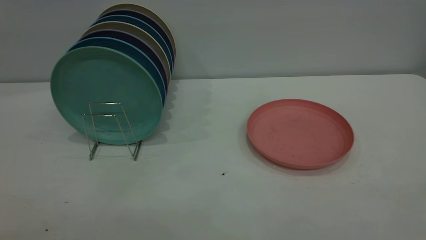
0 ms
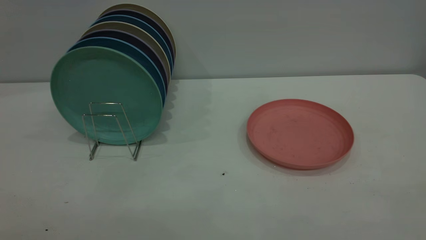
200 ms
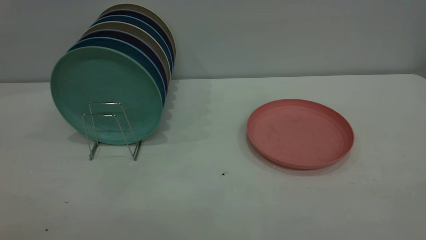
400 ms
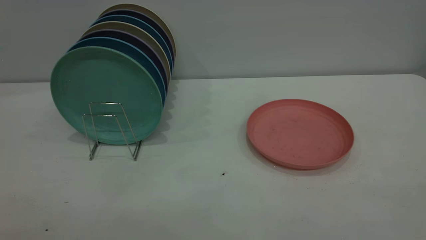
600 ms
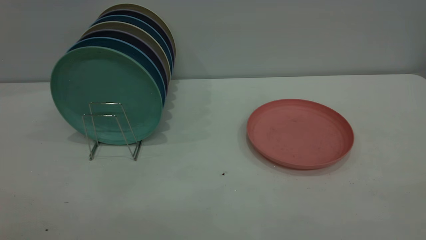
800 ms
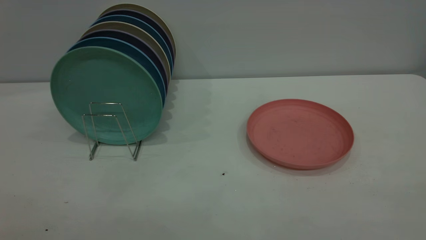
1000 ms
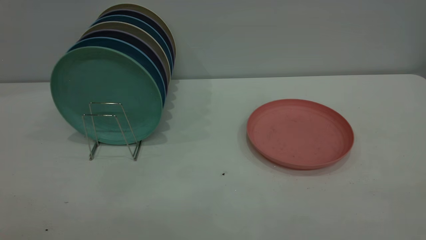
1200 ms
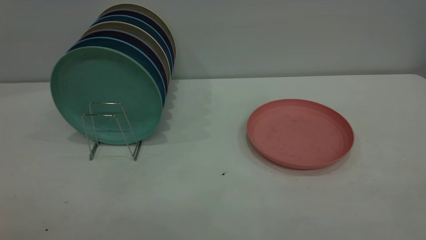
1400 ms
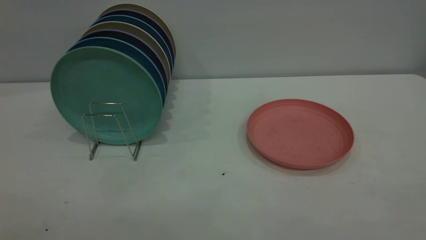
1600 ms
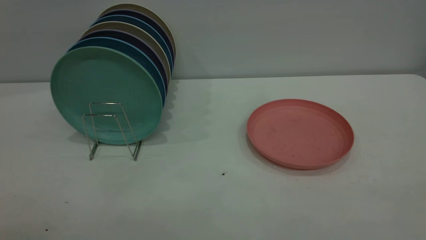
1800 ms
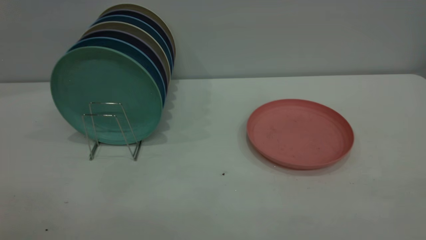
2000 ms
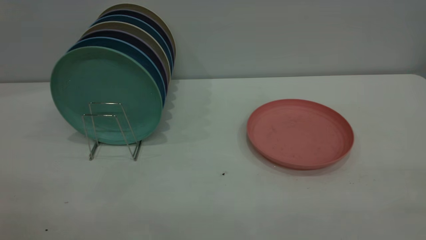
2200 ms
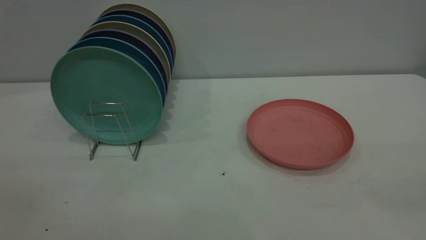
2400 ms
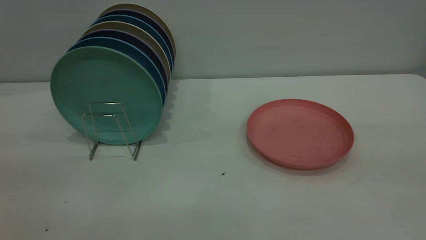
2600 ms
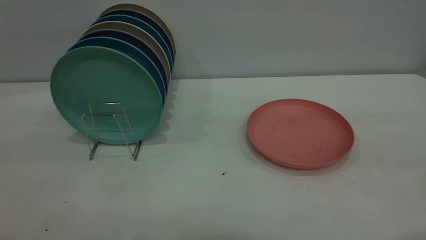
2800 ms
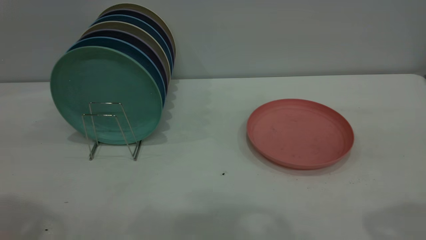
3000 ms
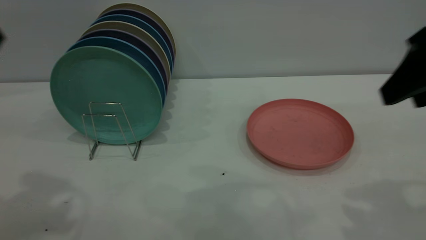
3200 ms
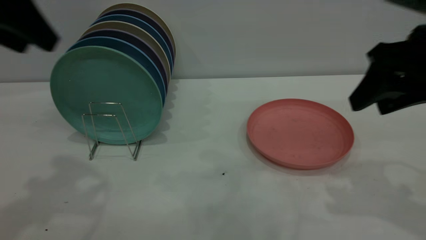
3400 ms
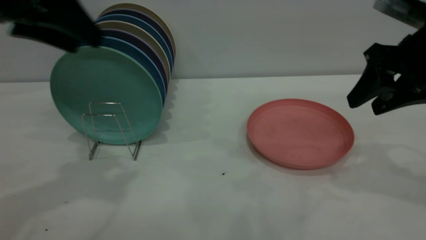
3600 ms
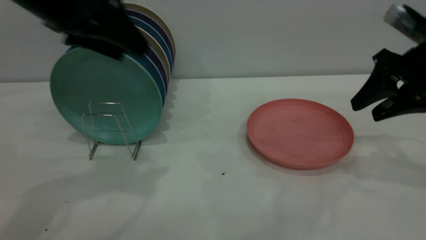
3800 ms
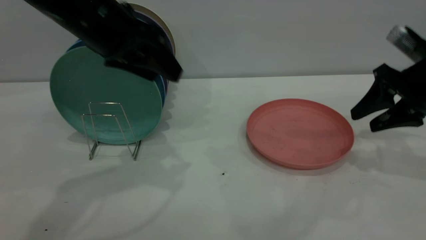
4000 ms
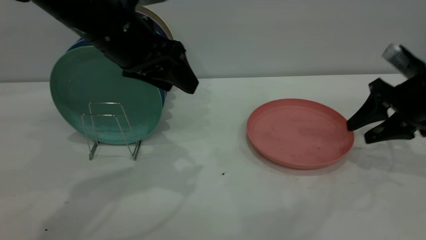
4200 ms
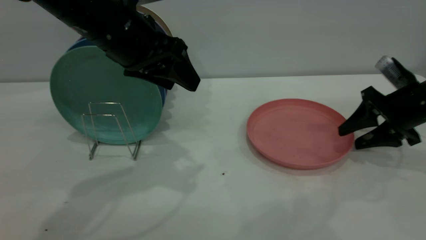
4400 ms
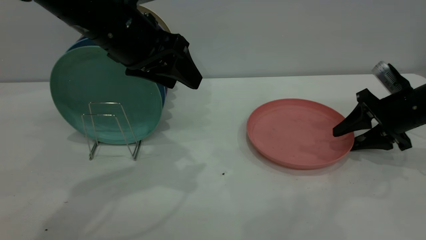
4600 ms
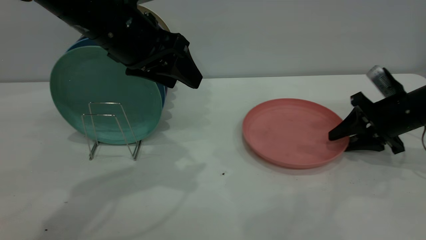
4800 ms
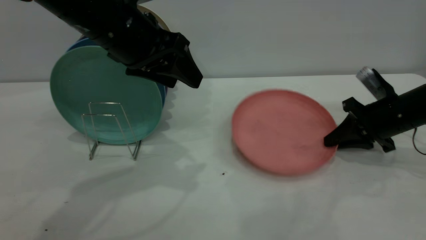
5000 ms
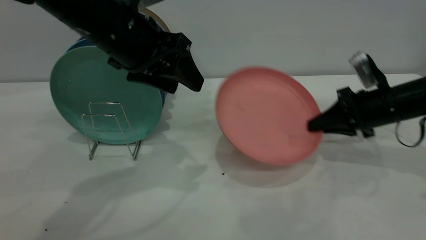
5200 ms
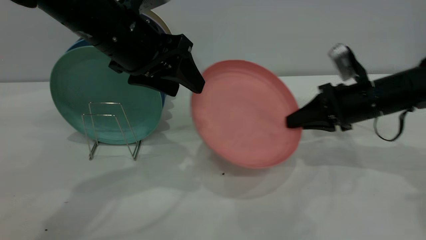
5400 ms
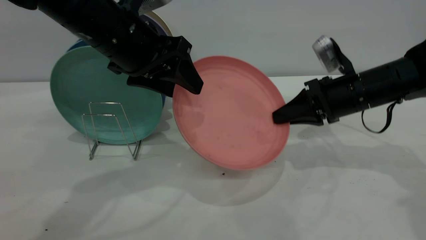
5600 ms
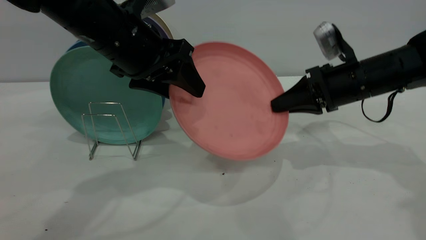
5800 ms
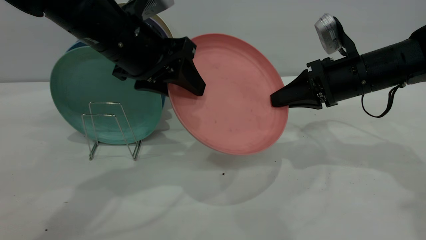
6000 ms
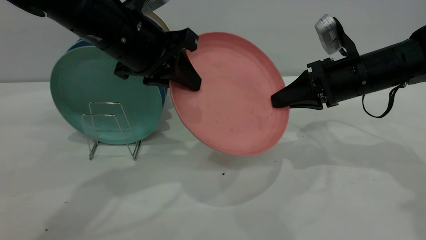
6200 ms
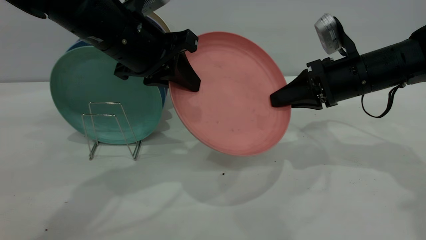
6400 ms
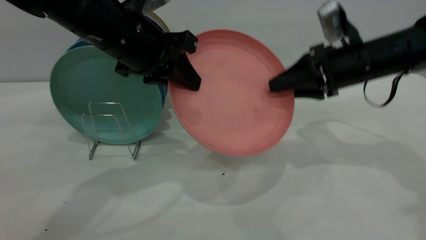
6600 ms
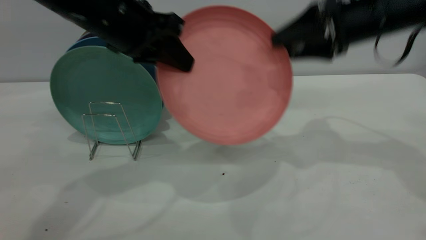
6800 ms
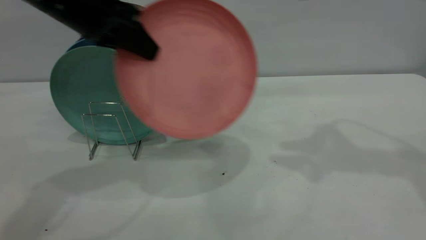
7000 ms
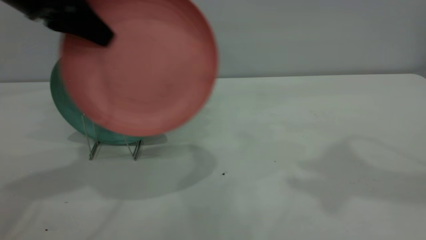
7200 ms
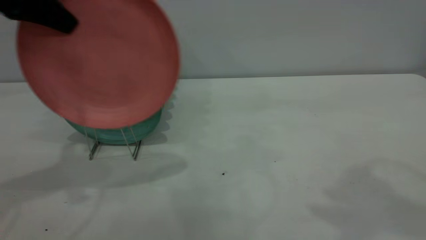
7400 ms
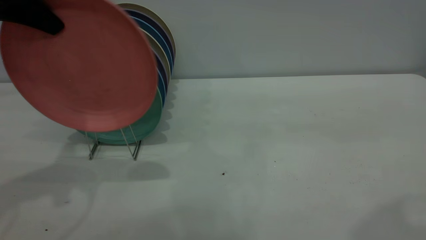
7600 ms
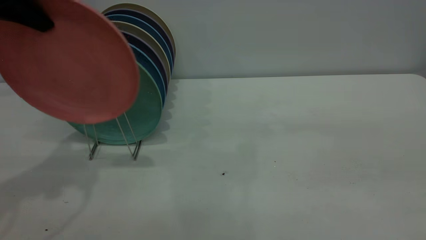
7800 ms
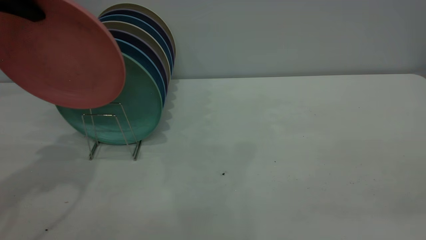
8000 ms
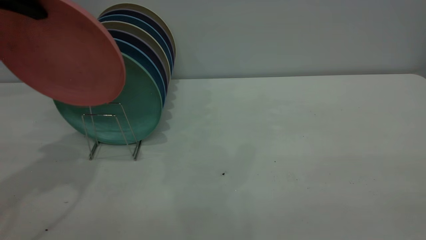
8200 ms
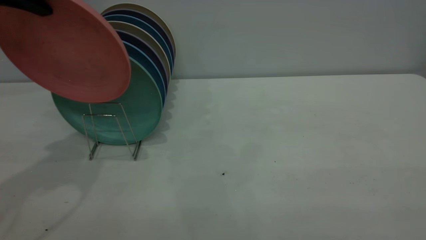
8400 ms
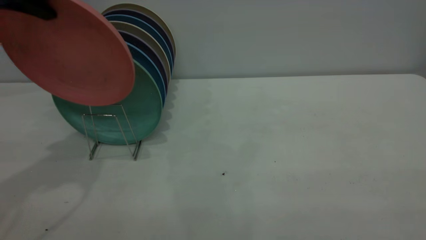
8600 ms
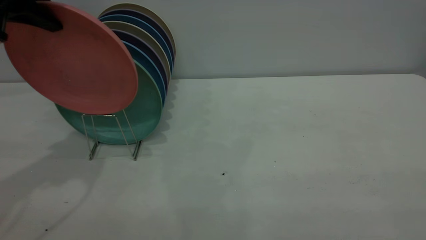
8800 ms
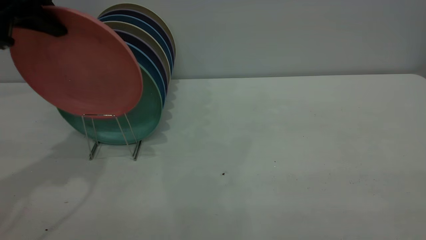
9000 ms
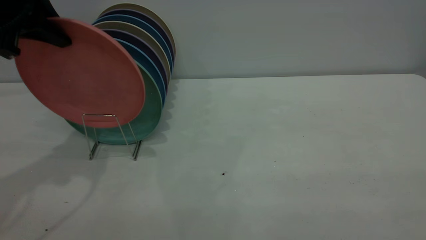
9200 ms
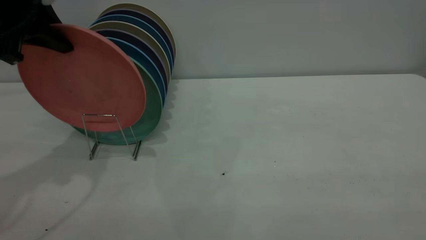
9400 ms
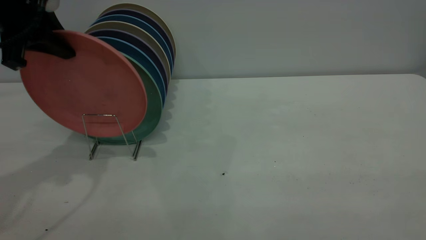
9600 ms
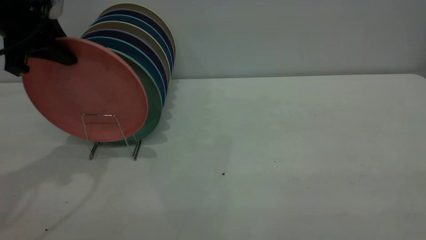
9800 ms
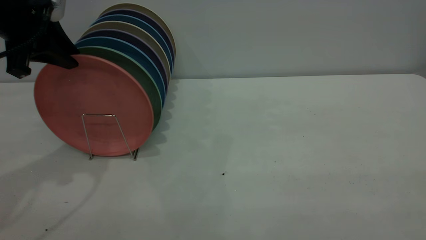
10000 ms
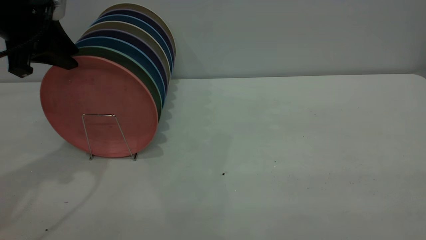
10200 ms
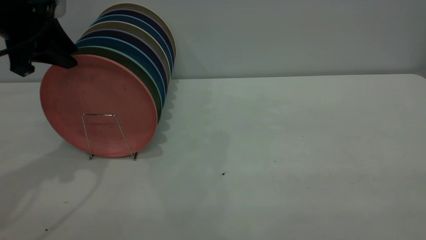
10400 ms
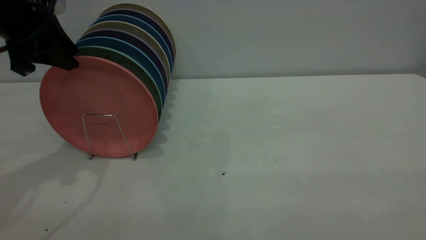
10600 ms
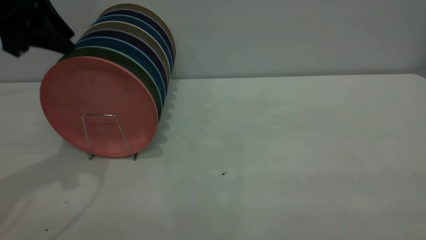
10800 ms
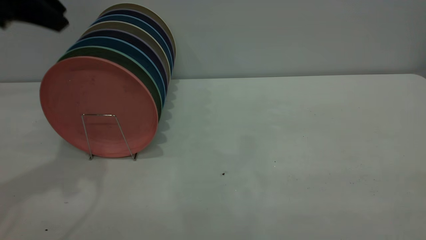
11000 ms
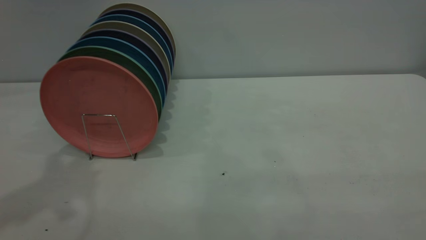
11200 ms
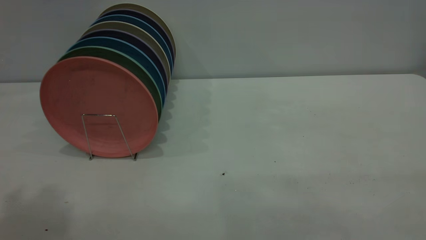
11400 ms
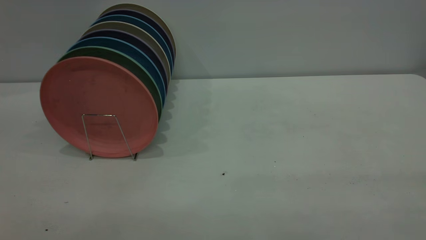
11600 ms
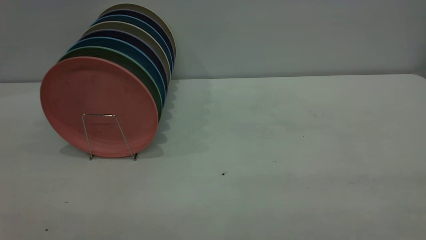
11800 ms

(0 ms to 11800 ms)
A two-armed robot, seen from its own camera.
Task of the whole recording: the right gripper grasp the pink plate, the right gripper pass the pink plate to the left gripper, and the left gripper place the pink plate on the plate rack.
Step, 0 ms - 5000 ms: Pick up the plate with the right gripper.
Step, 5400 ms - 6800 ms: Pass the plate from the right gripper to the left gripper.
Step, 7000 ms - 10800 ms: Place the plate on the shelf.
0 ms - 1400 ms: Both grippers stay put.
3000 ms - 4400 ms: The right gripper shifts roughly 30 cm downward and forward; the left gripper shifts roughly 25 cm to the right, forward and downward.
4400 ms - 6000 ms: The right gripper is displaced to the left by about 10 cm, and closes, while the left gripper closes.
6000 ms - 7400 ms: The right gripper is displaced upward and backward by some 35 cm, and opens. The left gripper goes approximately 20 cm to the left and upward, and closes its fingers.
7400 ms - 8800 ms: The right gripper goes roughly 25 cm backward.
8800 ms - 10400 ms: The left gripper moves downward, roughly 5 cm, and opens up.
10400 ms - 11800 ms: The left gripper travels backward and upward by some 40 cm.

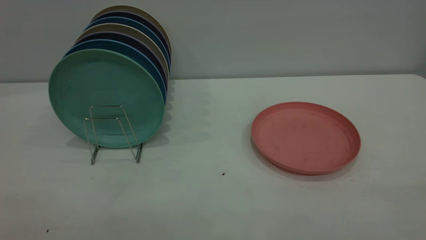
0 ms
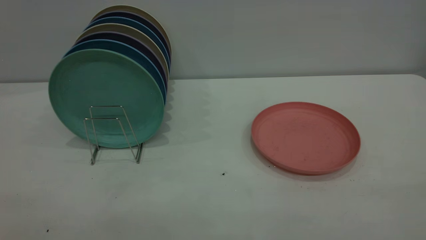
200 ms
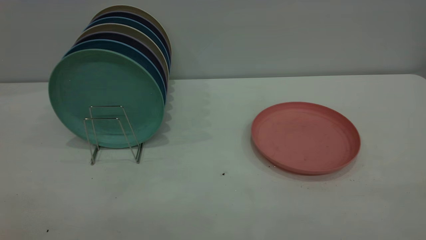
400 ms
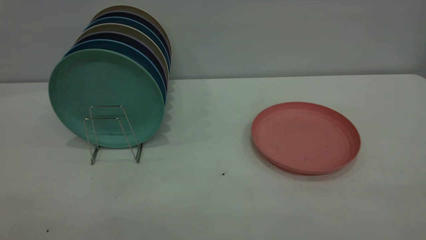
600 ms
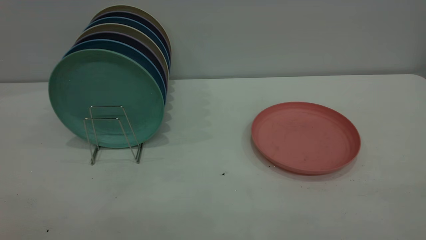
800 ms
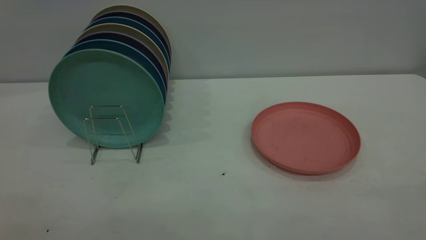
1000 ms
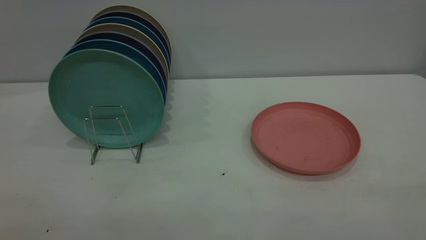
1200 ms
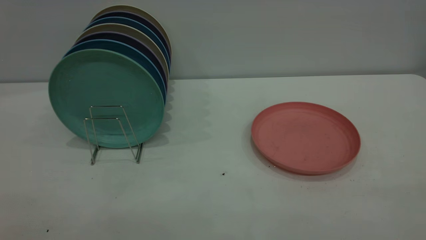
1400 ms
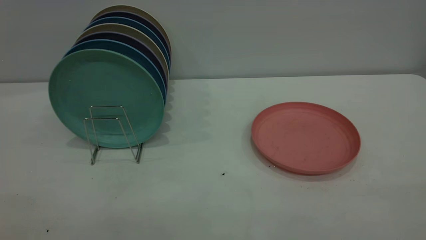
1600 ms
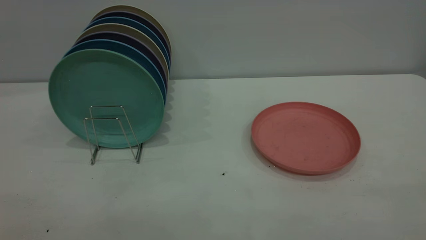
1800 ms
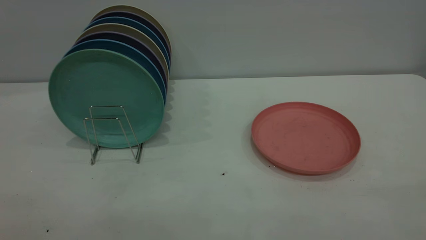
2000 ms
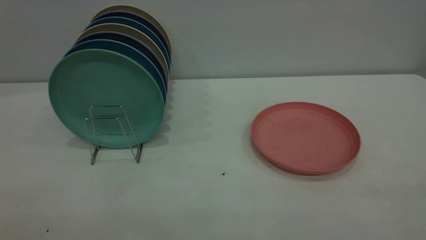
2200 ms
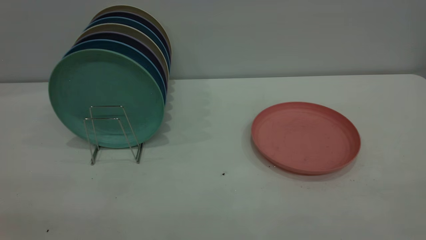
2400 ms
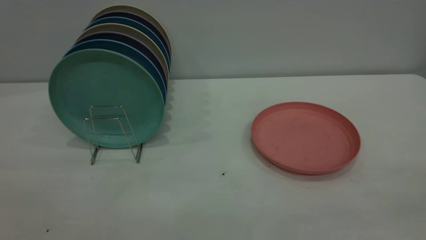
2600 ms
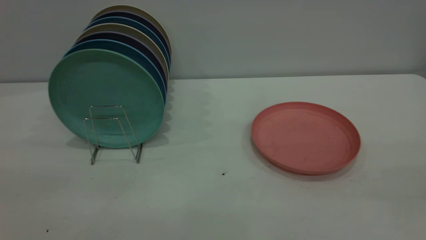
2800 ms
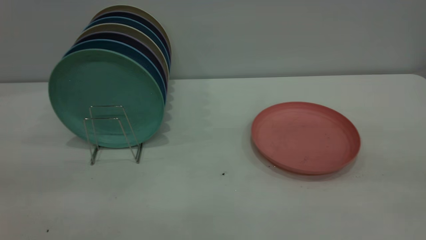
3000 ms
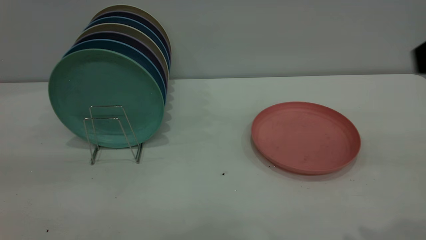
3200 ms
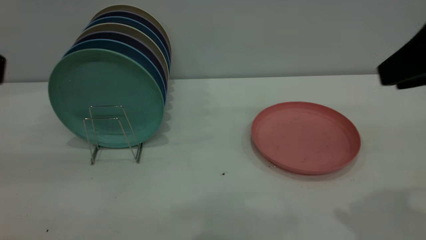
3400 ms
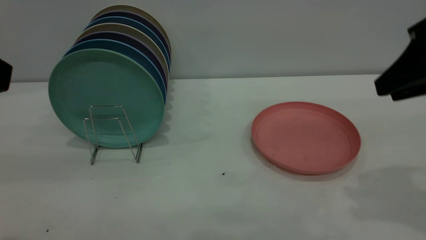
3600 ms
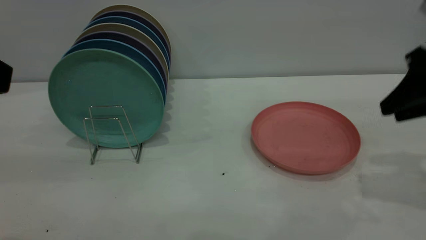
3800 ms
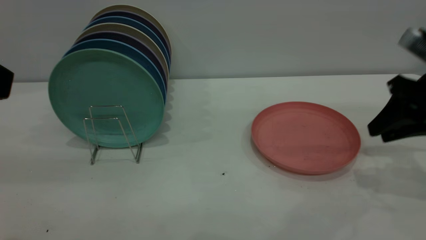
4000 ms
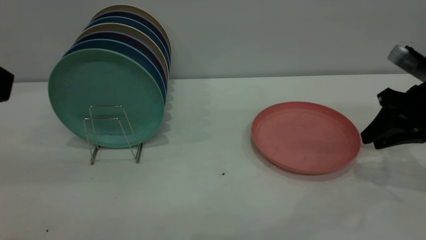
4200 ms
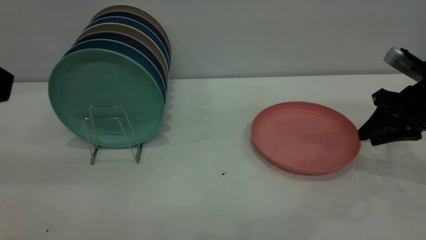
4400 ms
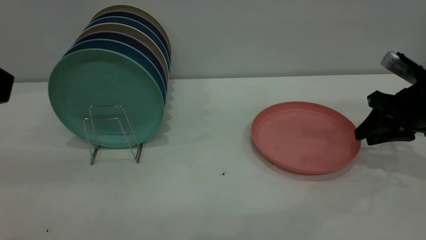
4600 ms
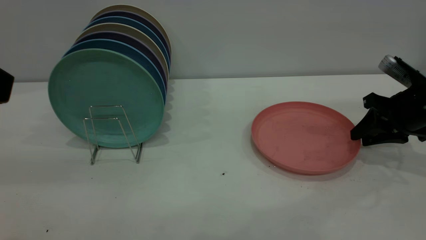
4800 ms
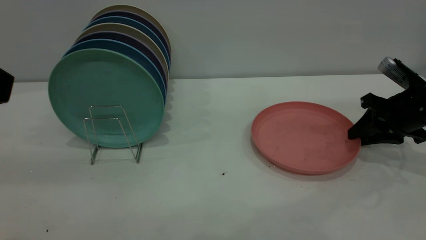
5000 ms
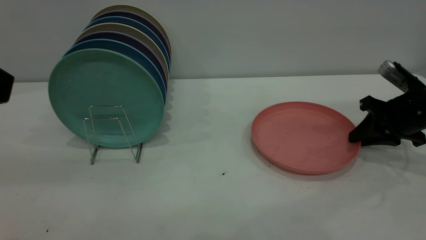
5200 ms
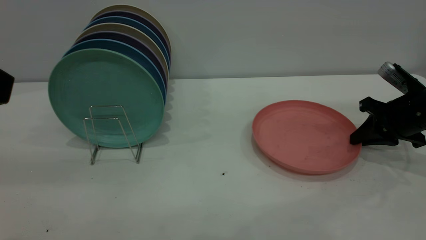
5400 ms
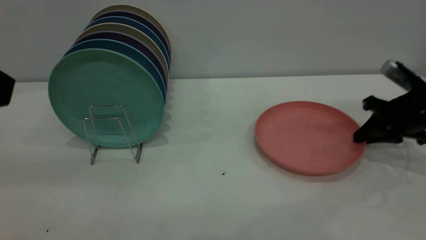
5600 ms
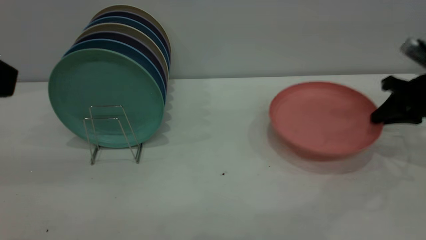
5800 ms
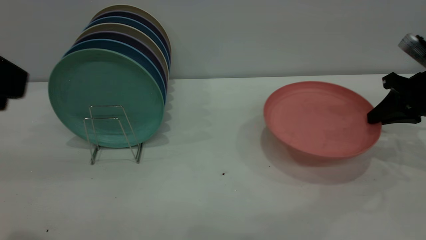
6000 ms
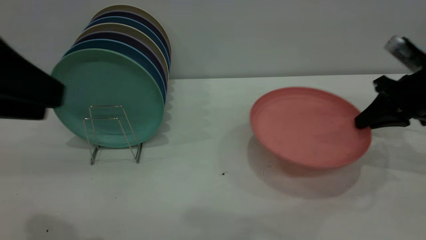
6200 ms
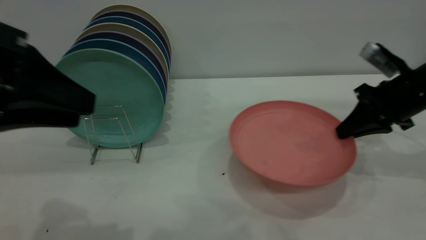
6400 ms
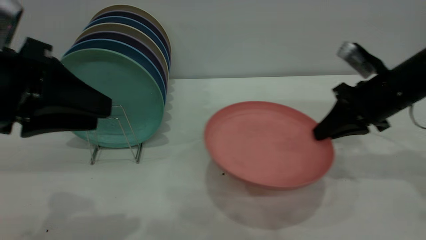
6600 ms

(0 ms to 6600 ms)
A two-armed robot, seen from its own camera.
Task of the whole recording: the right gripper grasp the pink plate, the right gripper pass the pink plate to the left gripper, and the left gripper place the pink plate on the plate rack.
Step, 0 ms - 6400 ms: Pick up the plate with the right gripper.
0 ms - 1600 ms: The two grippers keep their place.
3200 ms - 5000 ms: The right gripper is displaced downward and forward by roughly 30 cm.
5000 ms - 6600 ms: The left gripper is displaced downward and forward by about 10 cm. Meanwhile the right gripper is displaced to the left by some 10 cm, and closes up.
